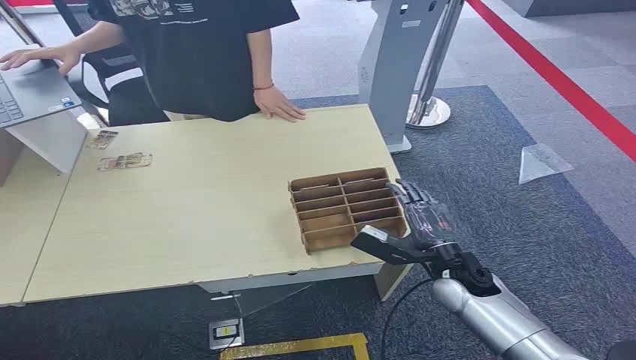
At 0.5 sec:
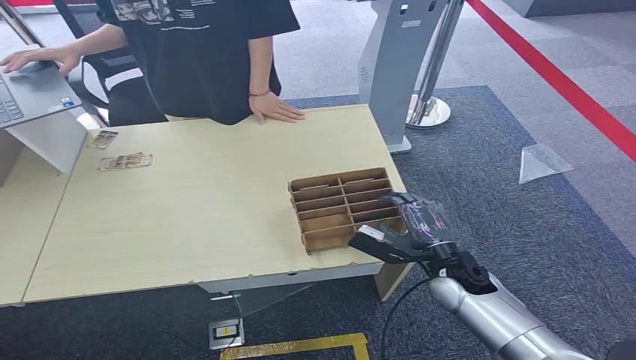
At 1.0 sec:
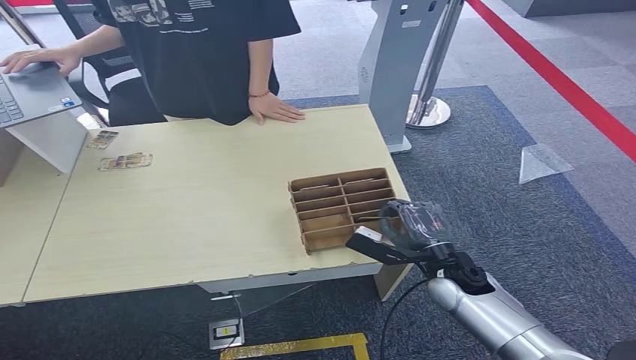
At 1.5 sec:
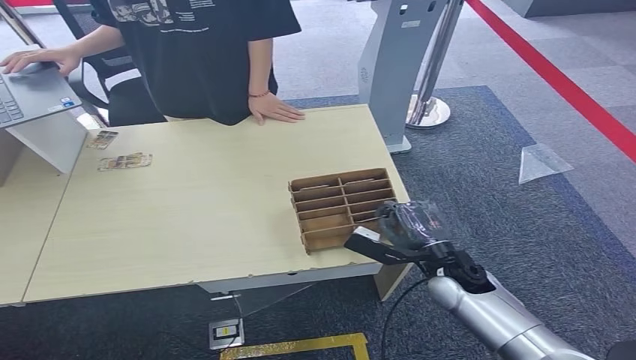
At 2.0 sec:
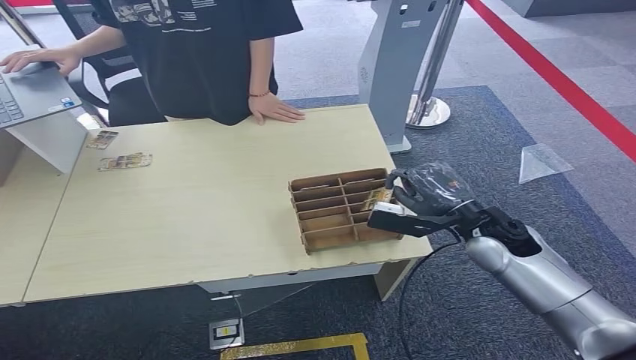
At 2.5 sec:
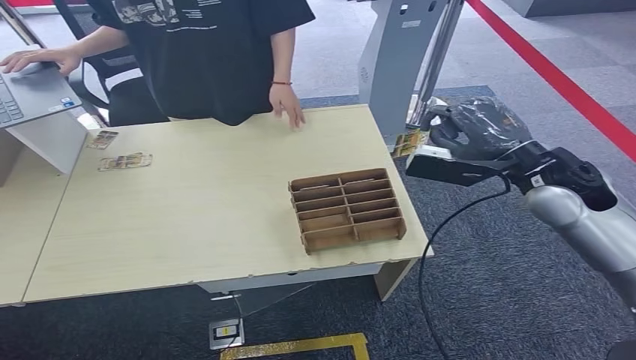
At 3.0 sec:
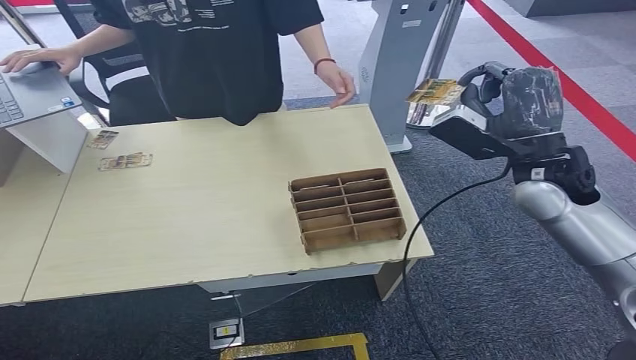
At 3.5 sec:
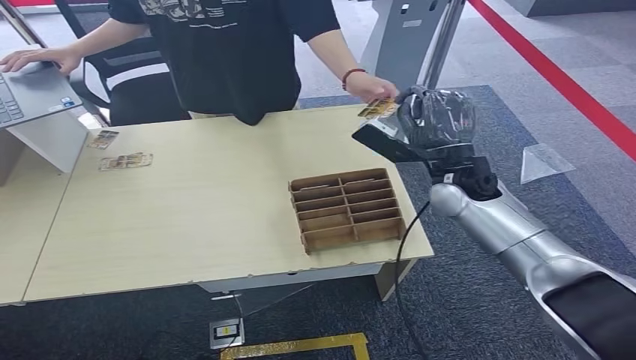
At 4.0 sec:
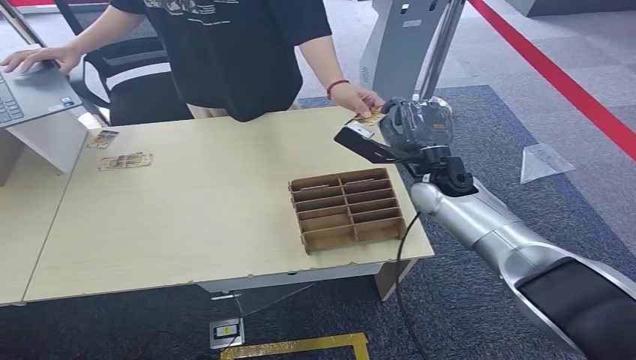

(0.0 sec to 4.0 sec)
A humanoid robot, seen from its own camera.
Step, 0.0 sec - 2.5 sec: Pick up the key card from the card box.
Step, 3.0 sec - 4.0 sec: Hand the key card to the target.
2.0 sec - 4.0 sec: The right hand goes about 10 cm forward and to the left, and reaches some 15 cm upward, then returns.
